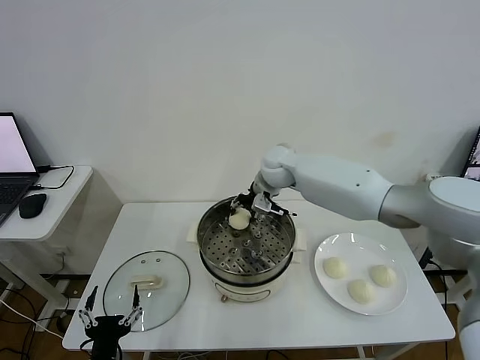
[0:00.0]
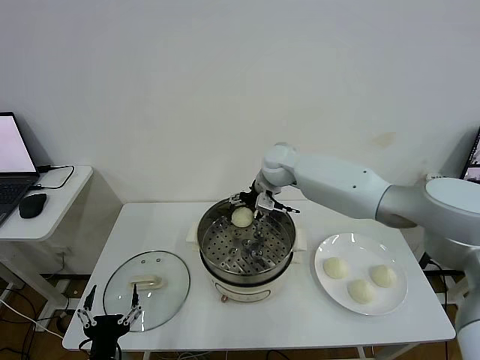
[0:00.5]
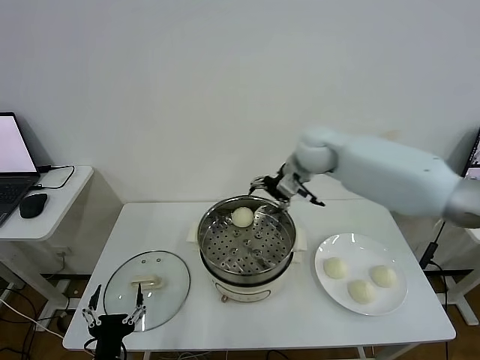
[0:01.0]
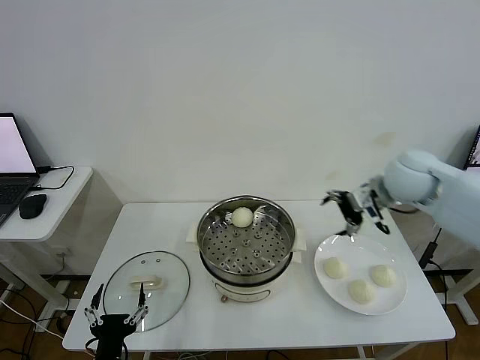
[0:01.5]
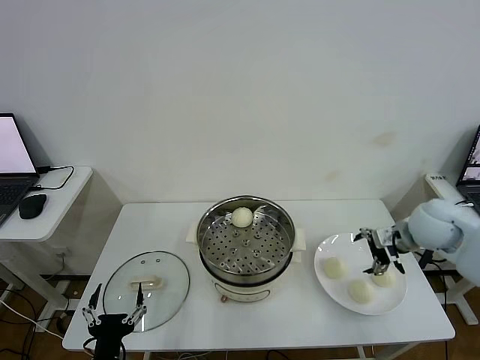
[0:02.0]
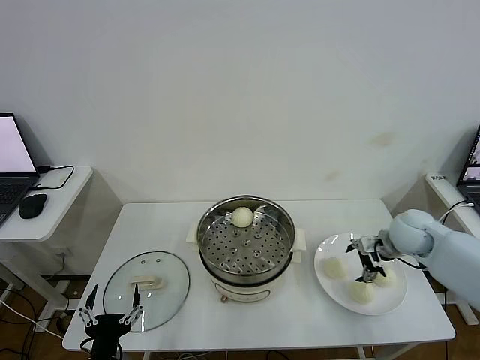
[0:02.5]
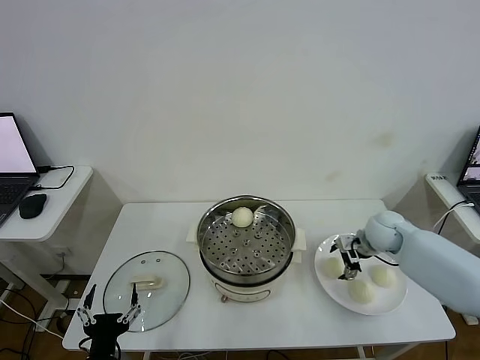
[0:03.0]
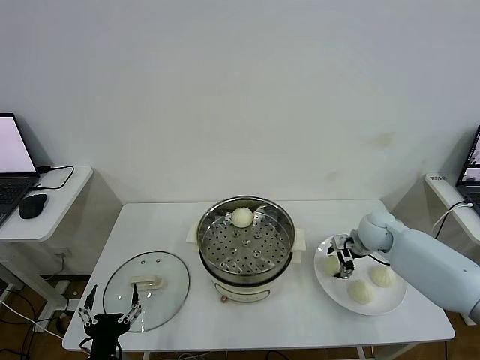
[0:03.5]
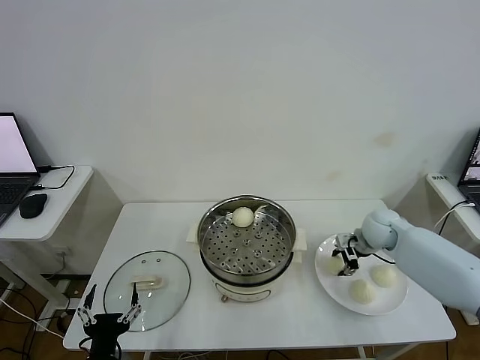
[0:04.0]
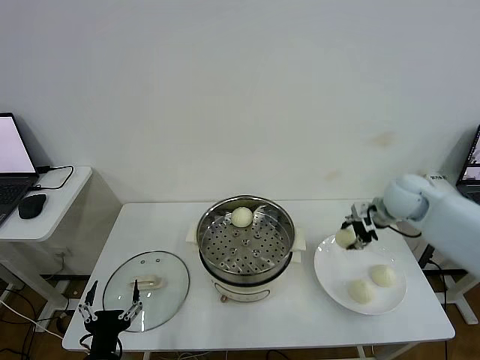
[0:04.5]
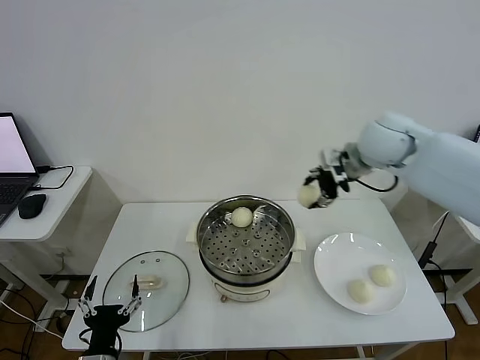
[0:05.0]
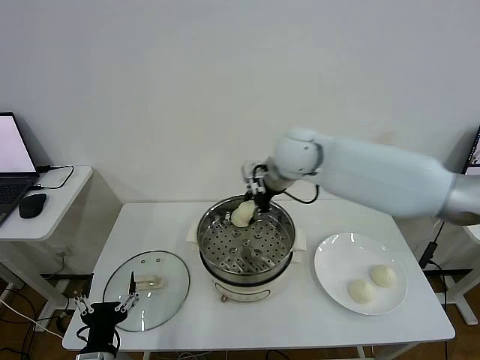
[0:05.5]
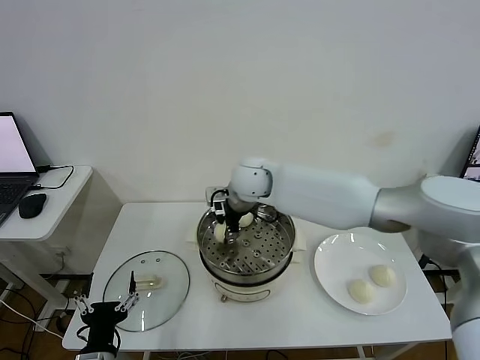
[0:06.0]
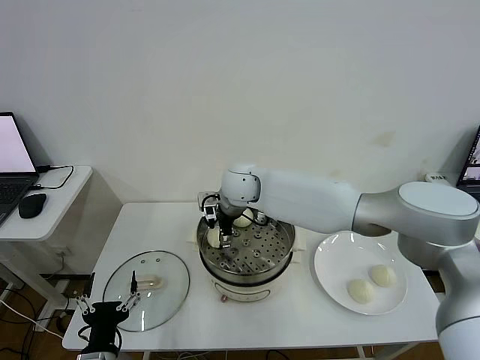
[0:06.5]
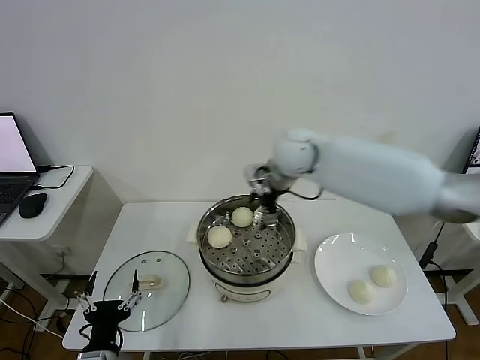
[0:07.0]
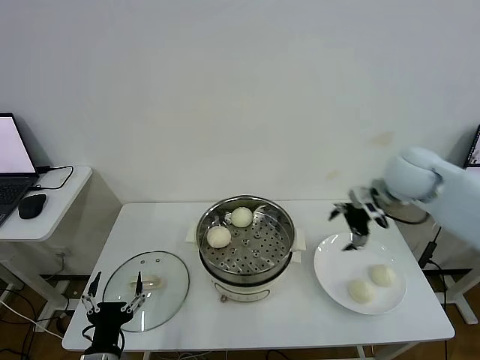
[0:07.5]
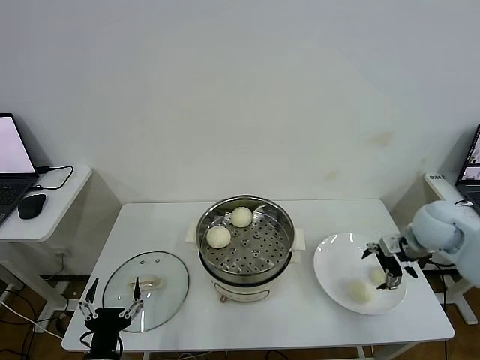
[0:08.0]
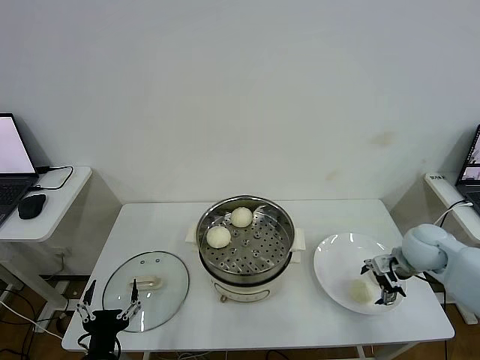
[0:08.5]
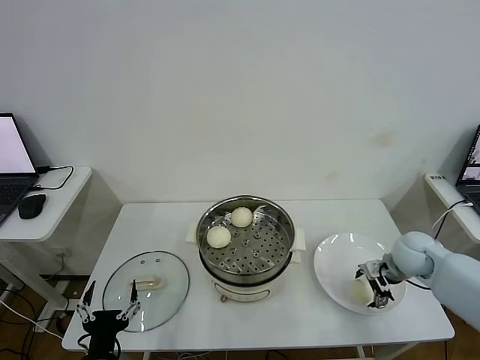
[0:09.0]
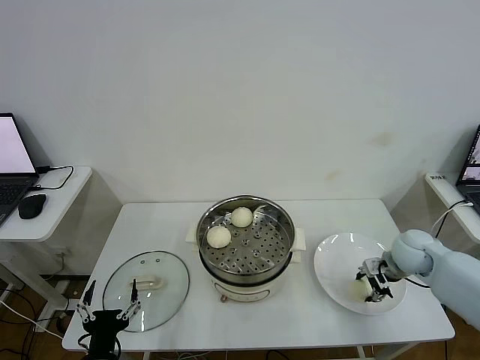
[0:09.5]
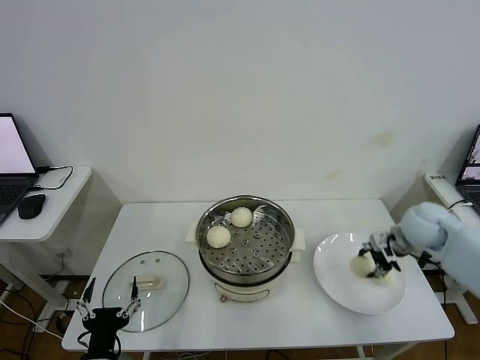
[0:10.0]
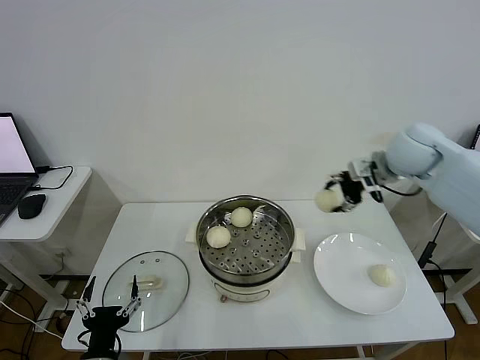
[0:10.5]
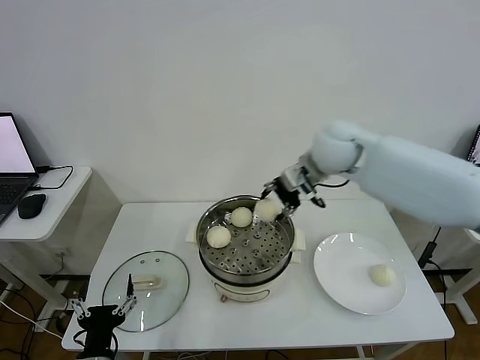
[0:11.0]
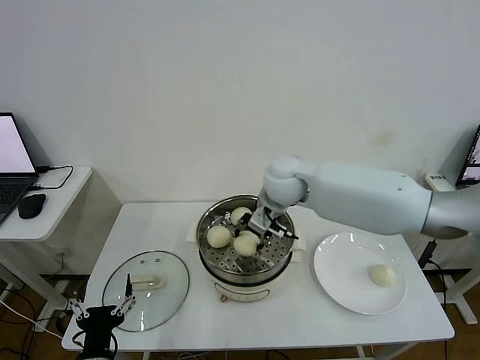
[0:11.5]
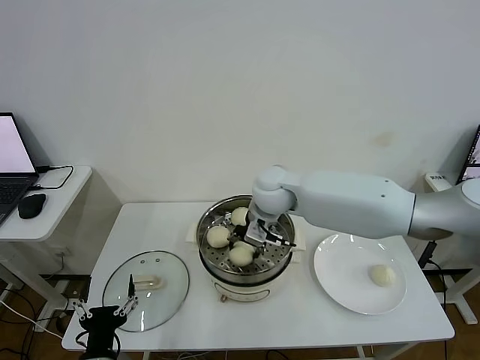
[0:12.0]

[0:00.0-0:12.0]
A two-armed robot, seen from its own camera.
Step, 0:01.0 to 0:03.5: Grasp the baozi in the plate with right gripper.
Step, 0:04.0 to 0:06.5: Place the baozi on the steamer with right gripper.
Step, 0:07.0 to 0:09.0: Grasp the baozi in the plate with right gripper.
0:00.0 to 0:02.0: The right gripper is displaced to the right and backward by about 35 cm, and opens its fingers.
0:02.0 to 0:04.0: The right gripper goes roughly 10 cm downward and forward, and closes up.
0:04.0 to 0:06.0: The right gripper moves to the left, about 35 cm.
0:06.0 to 0:08.0: The right gripper heads to the right, covering approximately 40 cm, and opens.
0:08.0 to 0:10.0: The right gripper reaches roughly 10 cm downward, then returns, and closes.
0:10.0 to 0:12.0: The right gripper heads to the left, covering some 35 cm.

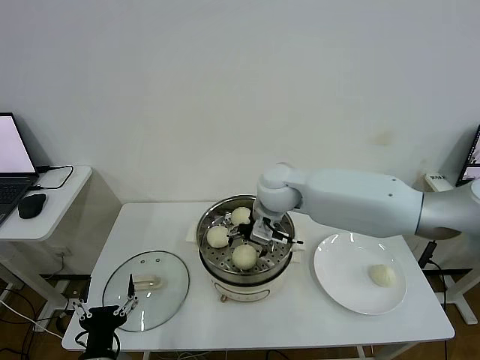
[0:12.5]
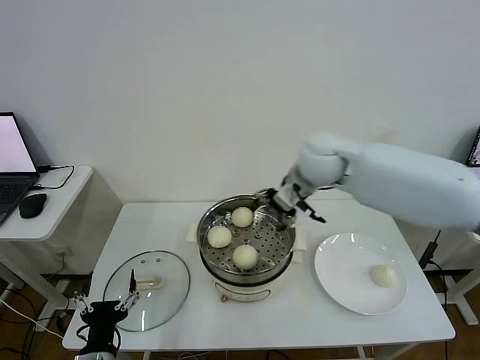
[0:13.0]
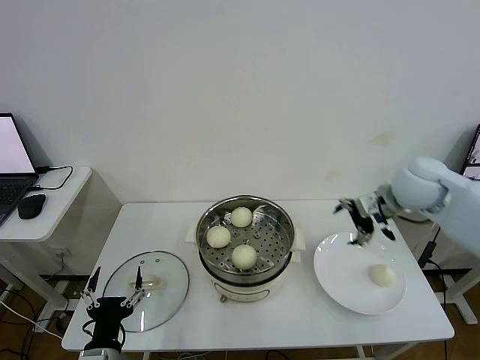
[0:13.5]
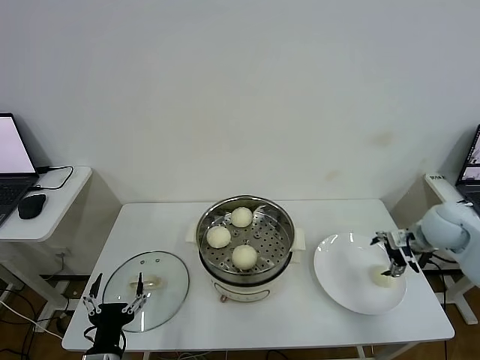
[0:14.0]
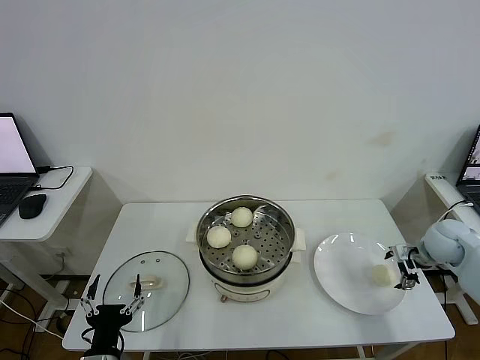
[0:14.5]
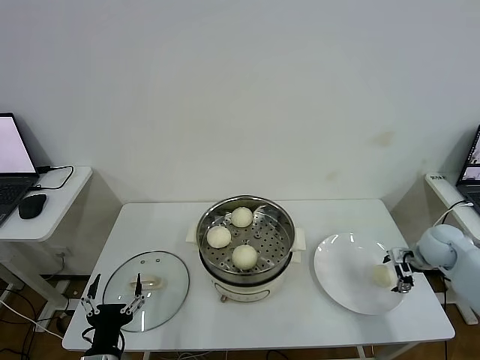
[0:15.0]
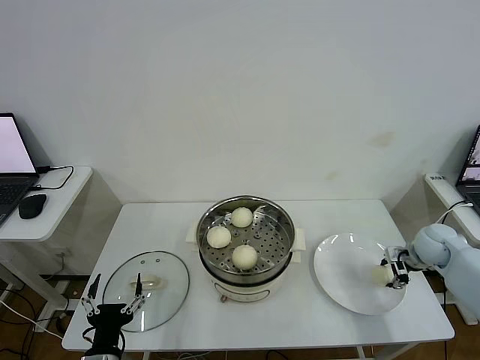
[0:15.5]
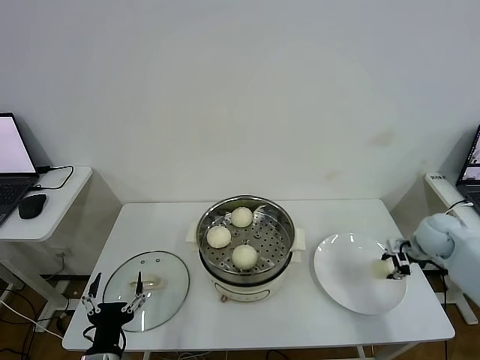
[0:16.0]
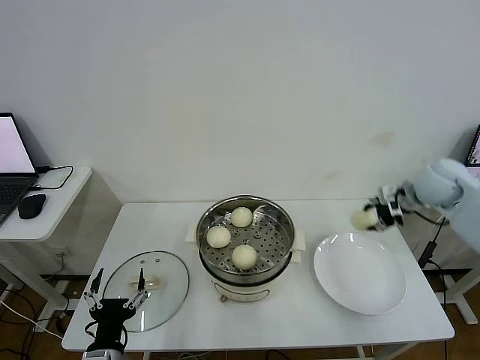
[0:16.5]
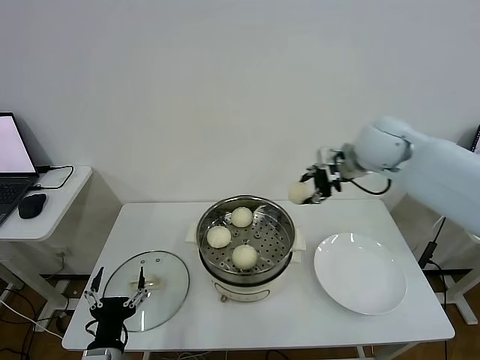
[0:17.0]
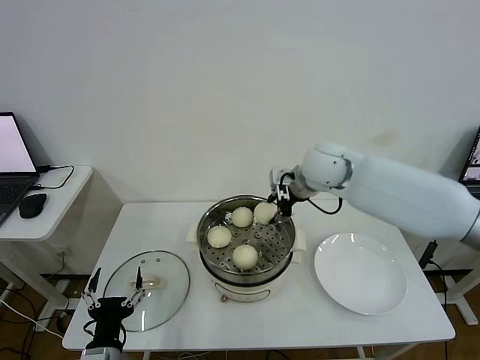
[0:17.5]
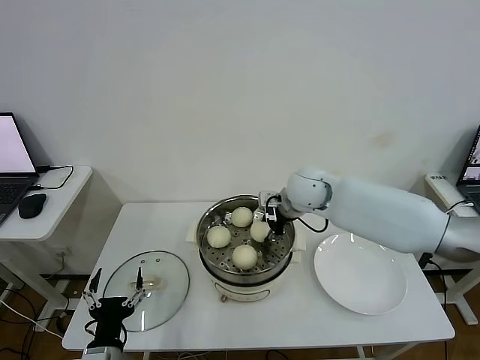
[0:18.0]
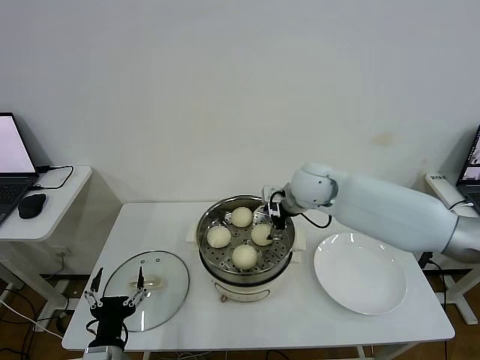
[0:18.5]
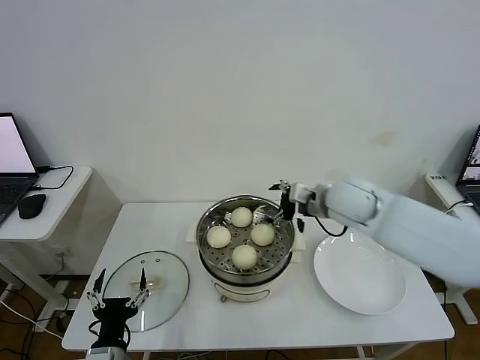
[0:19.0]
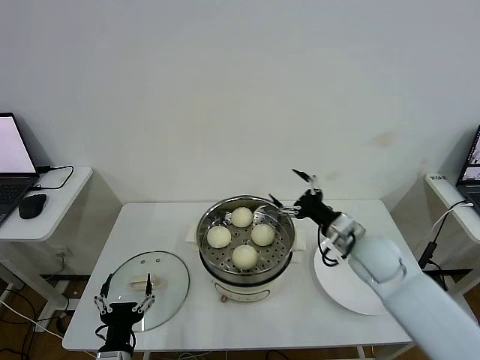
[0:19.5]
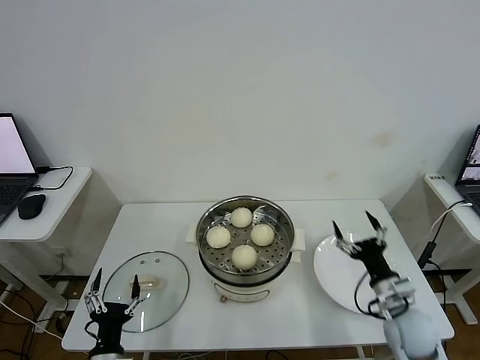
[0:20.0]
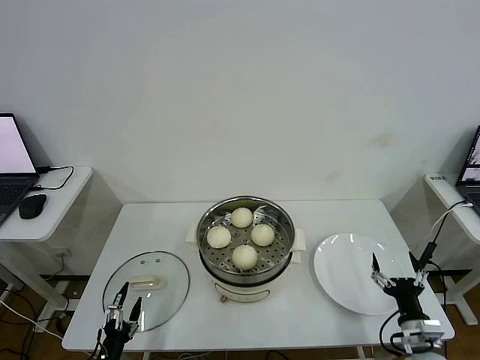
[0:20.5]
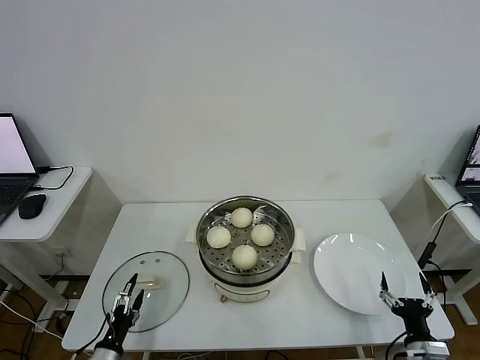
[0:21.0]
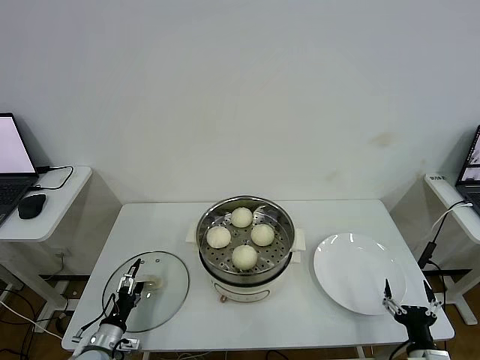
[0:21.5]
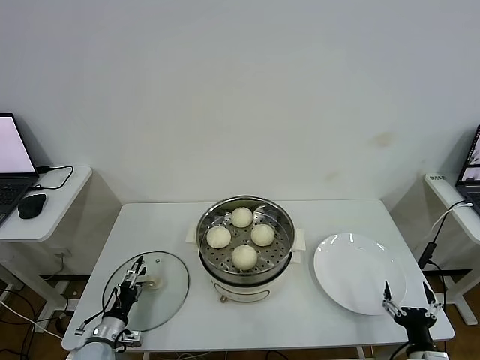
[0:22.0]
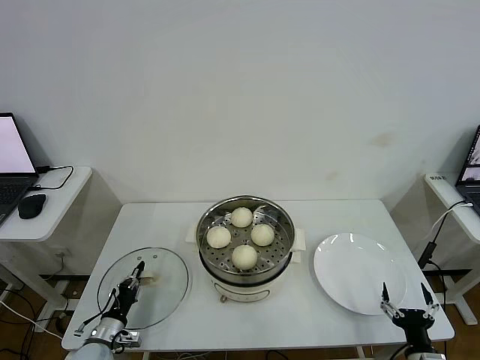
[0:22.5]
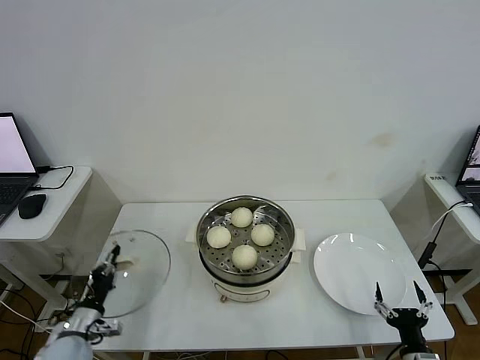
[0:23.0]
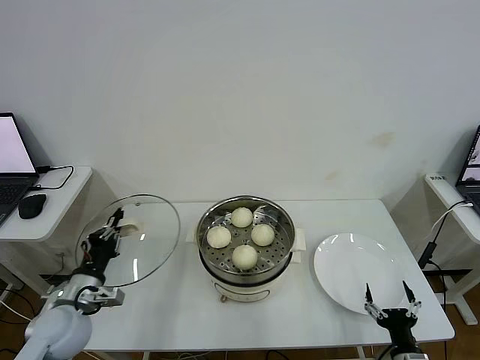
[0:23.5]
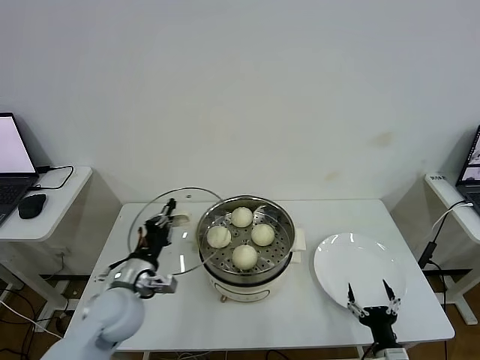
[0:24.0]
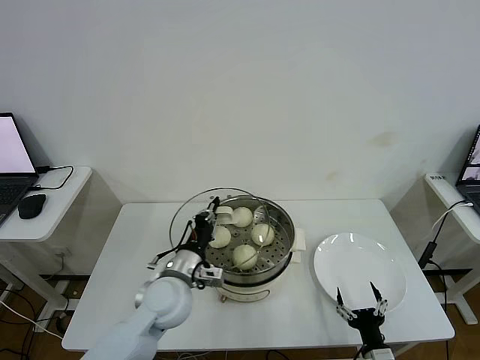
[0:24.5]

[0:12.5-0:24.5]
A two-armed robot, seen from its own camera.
Step, 0:13.0 to 0:15.5: Grasp the baozi in the plate with right gripper.
Step, 0:16.0 to 0:18.5: Place the baozi on the steamer with right gripper.
Step, 0:19.0 to 0:22.5: Grasp the pot lid with left gripper.
0:12.5 to 0:14.5: The right gripper moves to the right, some 40 cm.
0:14.5 to 0:16.5: The right gripper goes approximately 15 cm upward, to the left and forward, and closes up.
0:16.5 to 0:18.5: The right gripper moves to the left, about 25 cm, and opens.
0:18.5 to 0:20.5: The right gripper moves backward, downward and to the right, approximately 50 cm; the left gripper goes roughly 10 cm downward and to the left.
0:20.5 to 0:22.5: The right gripper is displaced backward by roughly 5 cm, while the left gripper moves forward, approximately 15 cm, and closes up.
0:22.5 to 0:24.5: The right gripper shifts roughly 5 cm to the left. The left gripper is displaced upward and to the right by about 30 cm.

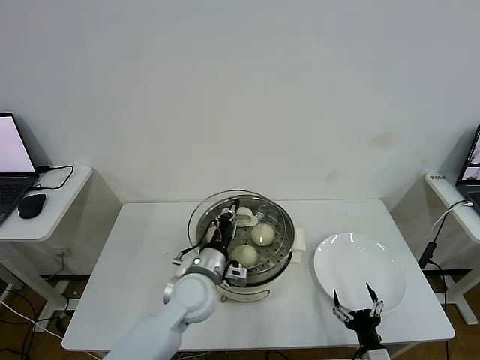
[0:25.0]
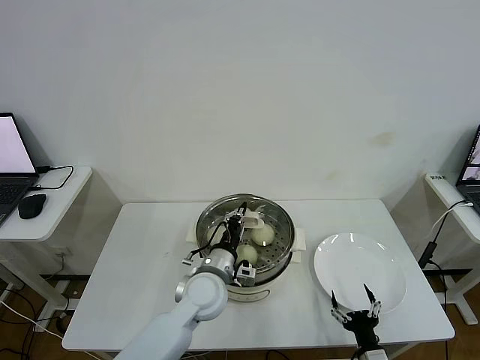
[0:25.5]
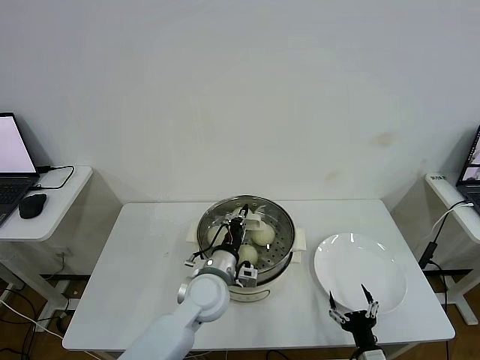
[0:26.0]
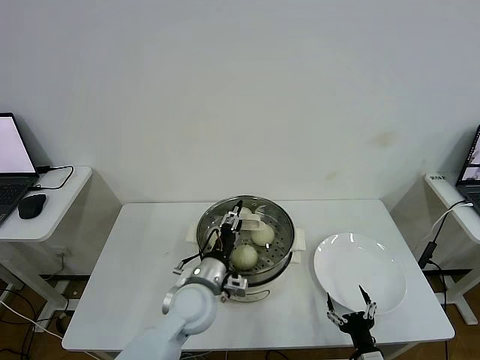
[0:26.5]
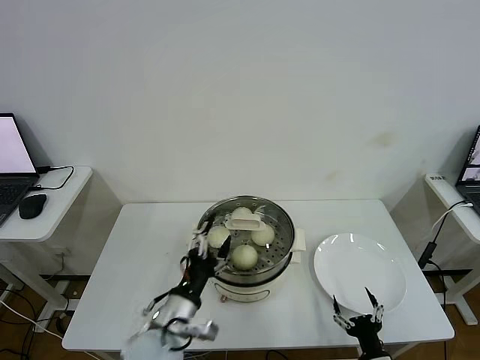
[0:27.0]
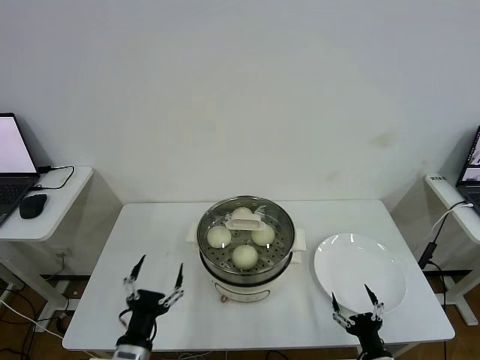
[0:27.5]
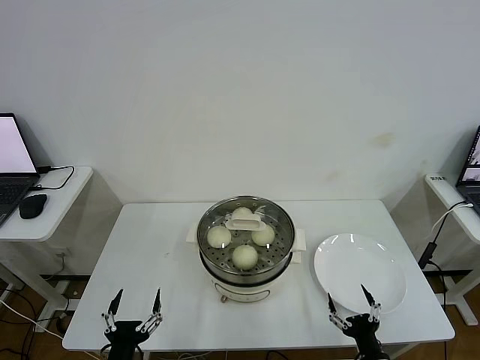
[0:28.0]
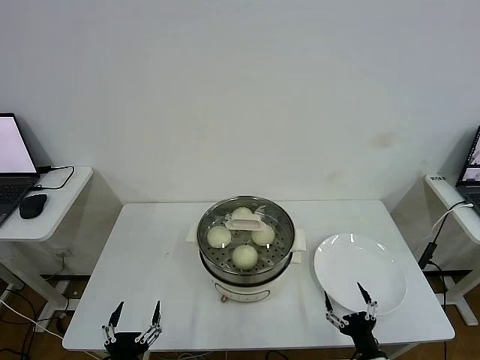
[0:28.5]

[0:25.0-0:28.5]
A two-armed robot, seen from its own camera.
0:25.0 to 0:27.0: The left gripper shifts some 10 cm backward, and opens.
0:27.0 to 0:28.5: The left gripper is displaced backward, to the left and downward by about 20 cm.
